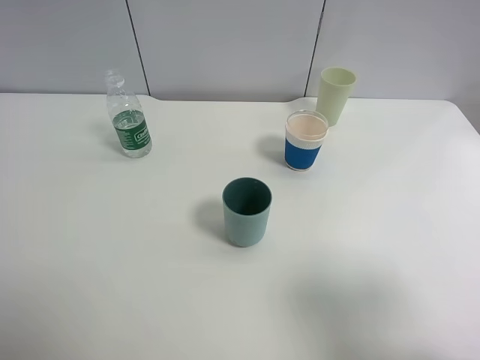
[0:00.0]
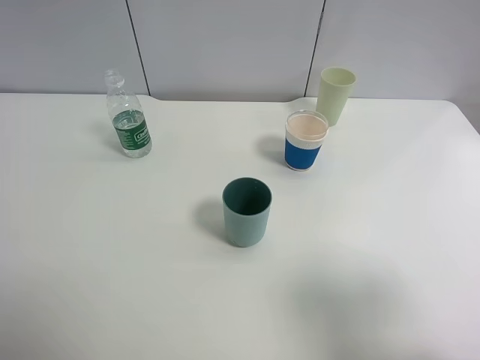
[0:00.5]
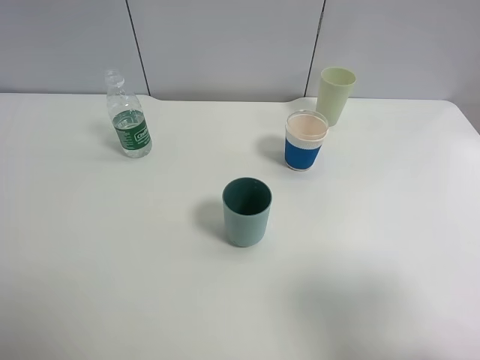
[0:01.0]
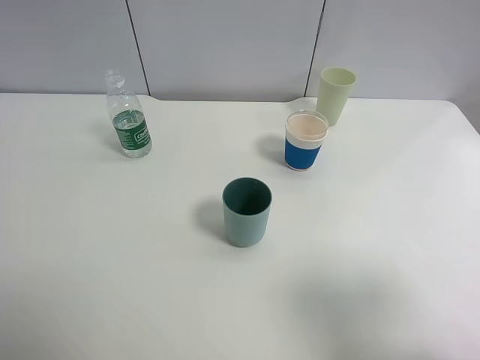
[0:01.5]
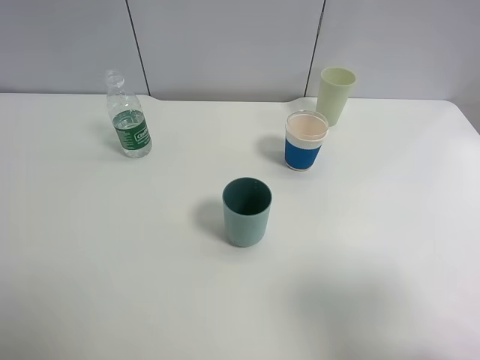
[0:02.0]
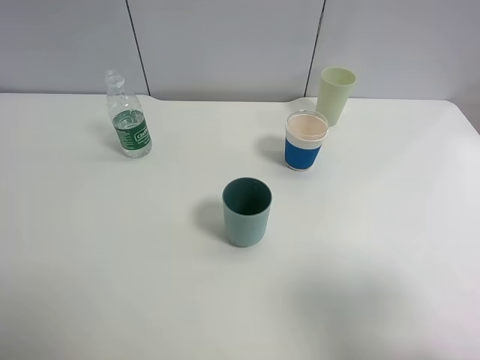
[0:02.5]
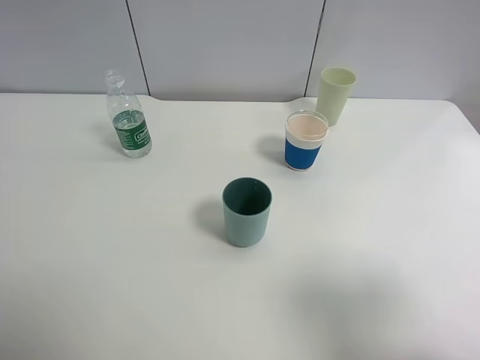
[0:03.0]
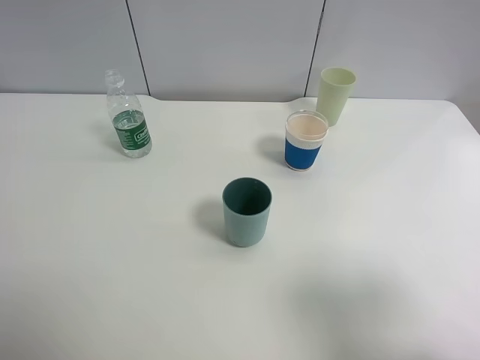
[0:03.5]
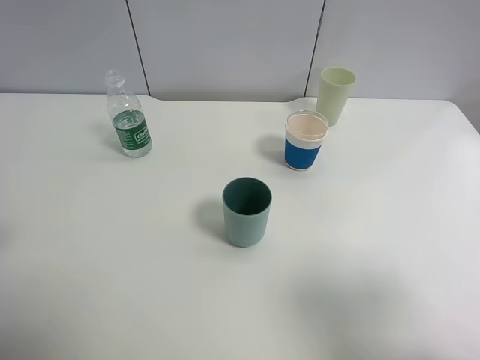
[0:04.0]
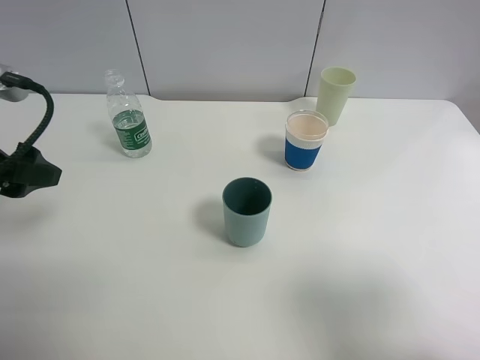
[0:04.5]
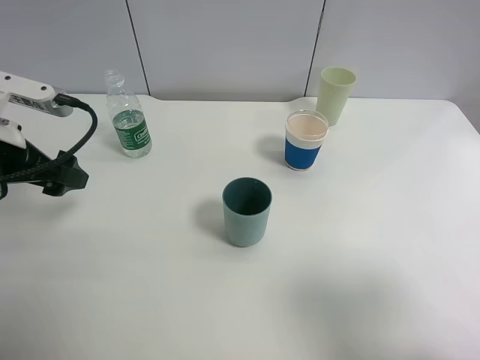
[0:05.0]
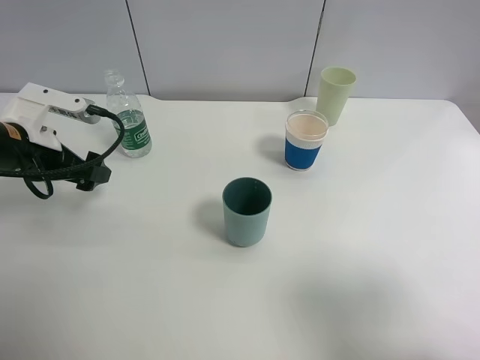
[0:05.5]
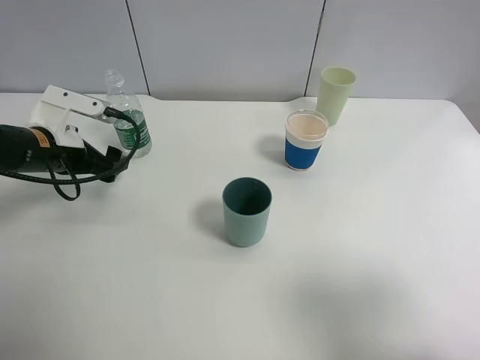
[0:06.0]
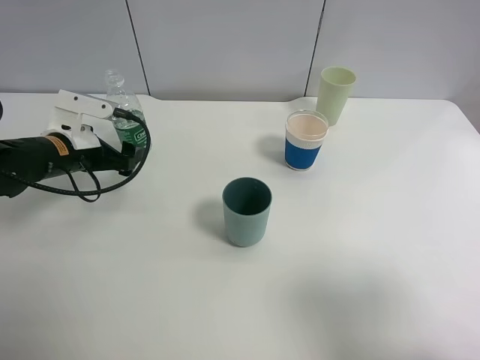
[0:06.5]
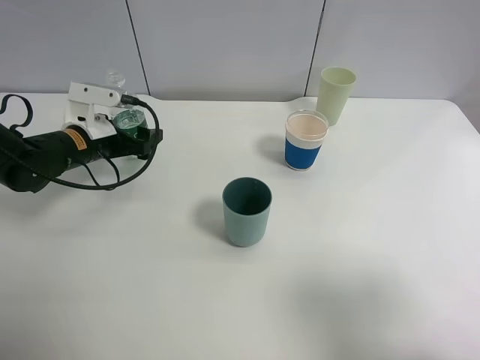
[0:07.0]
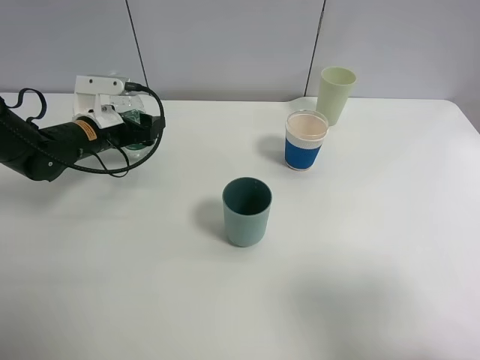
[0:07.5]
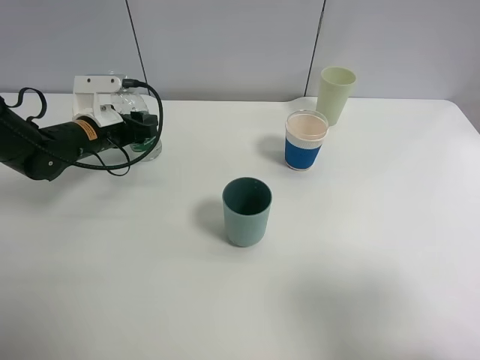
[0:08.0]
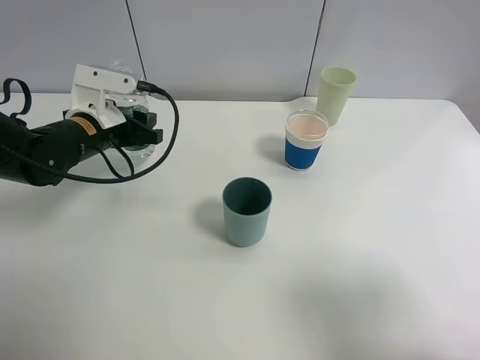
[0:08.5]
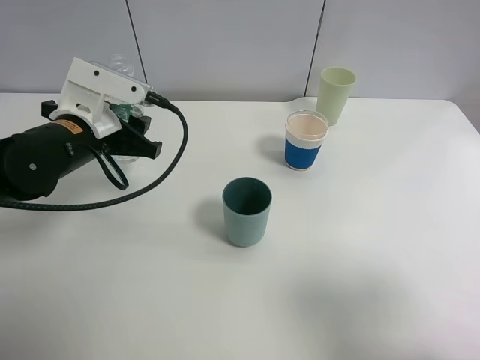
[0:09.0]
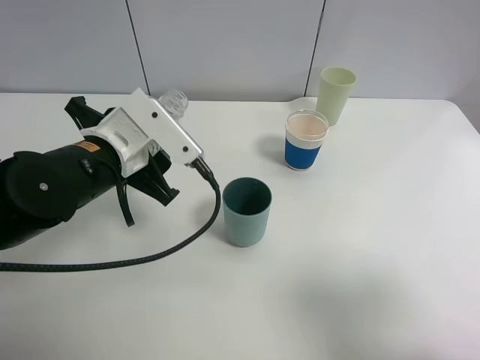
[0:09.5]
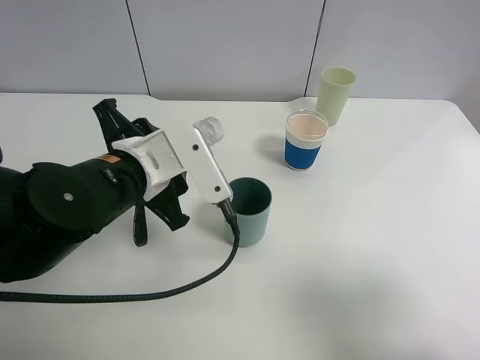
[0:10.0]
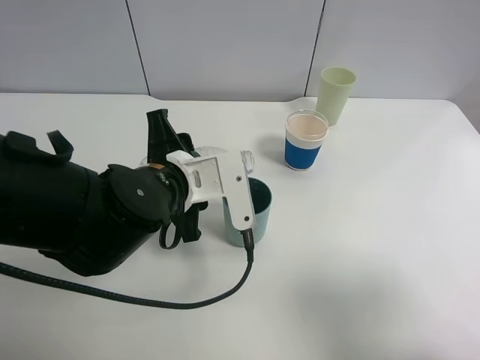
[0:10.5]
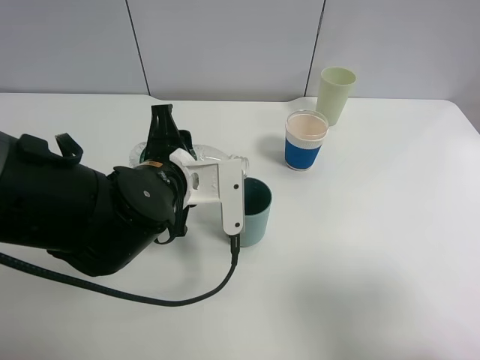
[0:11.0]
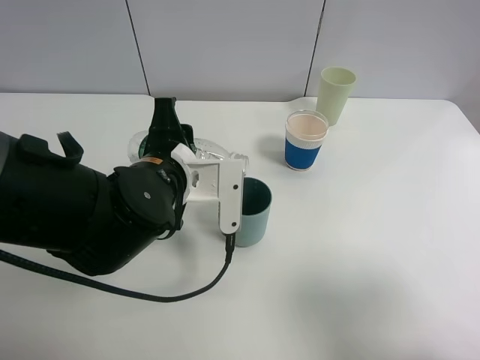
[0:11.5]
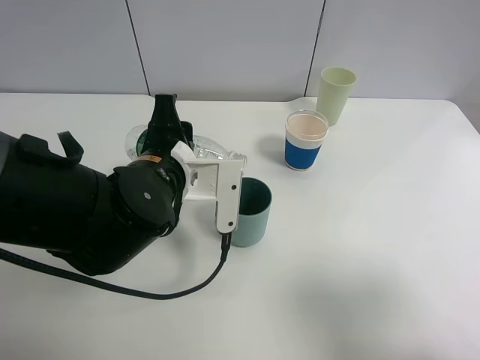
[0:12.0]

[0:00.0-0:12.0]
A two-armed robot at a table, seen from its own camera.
Task of the whole recording: use a clamp to hold the bottle of the drink, pour the beverage into a random cup, then clamp the cup containing the drink and pour the drink into another random cup.
Step, 0:00.0 to 0:08.5: Pick up the water bottle with left gripper.
0:00.0 to 0:02.0: Neither gripper changes place.
0:04.0 to 0:06.0: The left gripper shifts some 25 cm forward and downward.
0:06.0 to 0:08.0: The left gripper moves forward, roughly 5 cm, and closes up.
0:08.0 to 0:10.0: The left gripper moves backward, to the right and upward, approximately 20 cm.

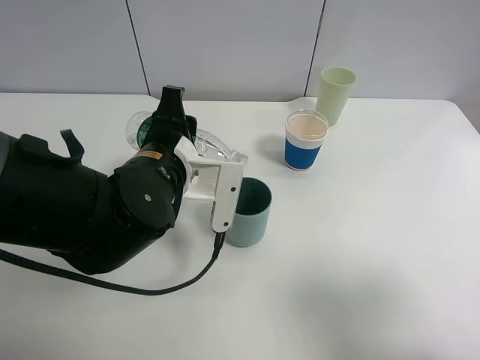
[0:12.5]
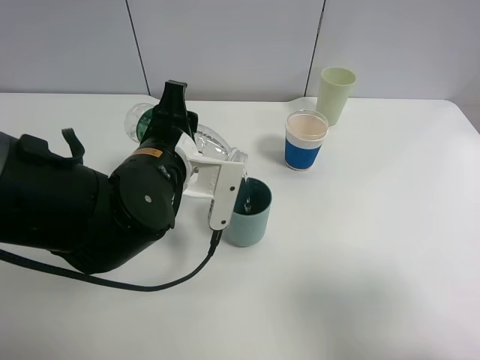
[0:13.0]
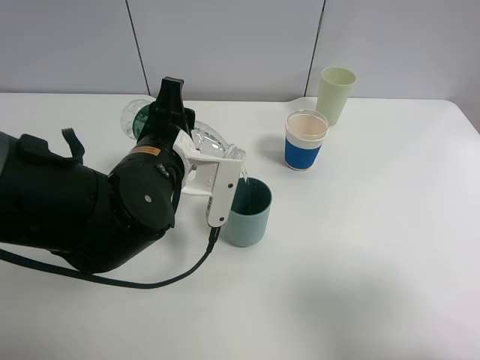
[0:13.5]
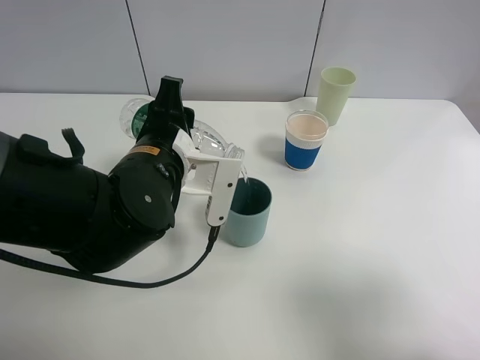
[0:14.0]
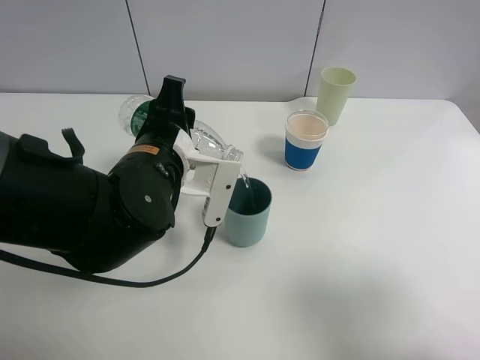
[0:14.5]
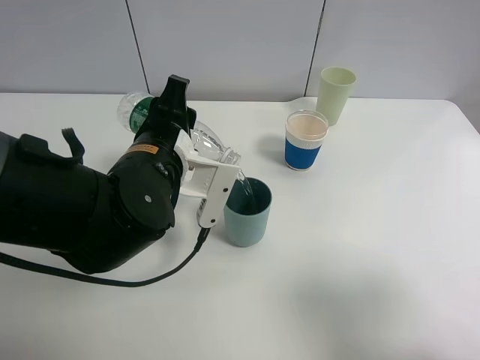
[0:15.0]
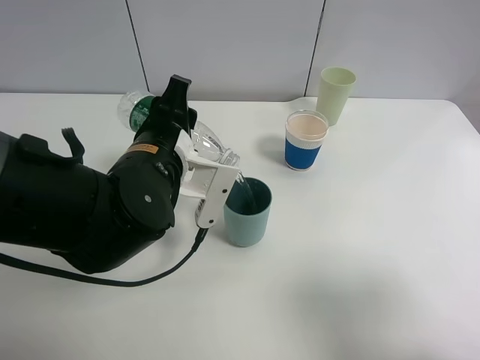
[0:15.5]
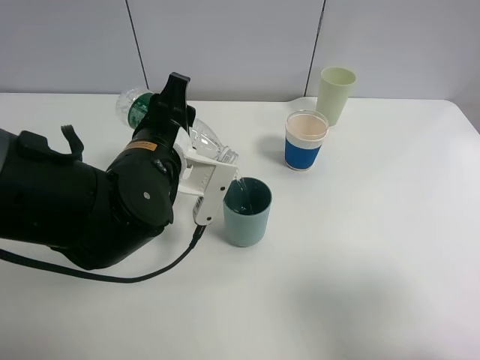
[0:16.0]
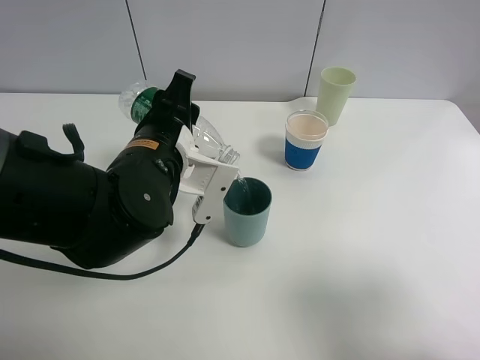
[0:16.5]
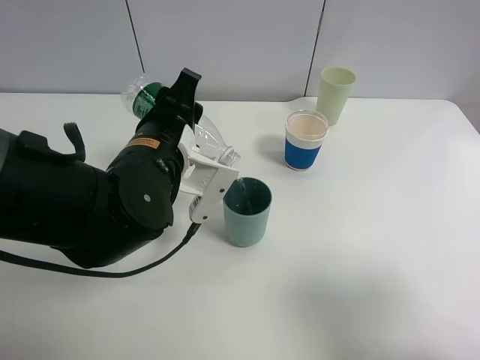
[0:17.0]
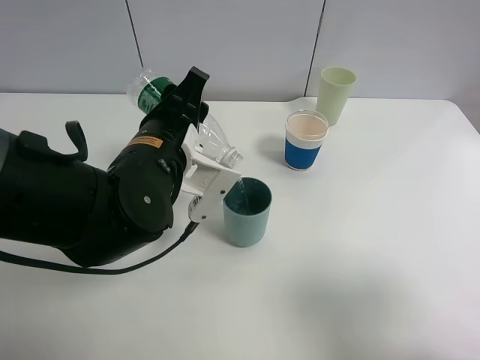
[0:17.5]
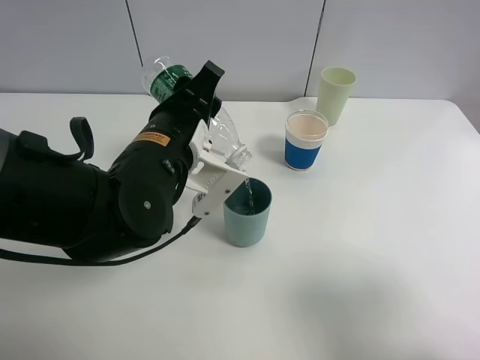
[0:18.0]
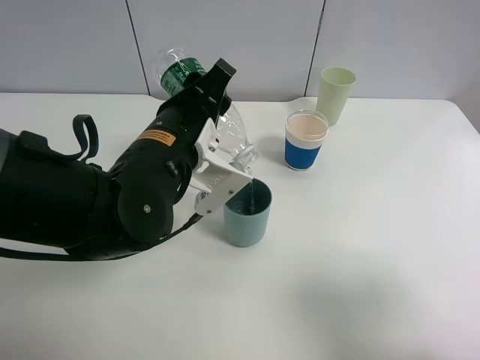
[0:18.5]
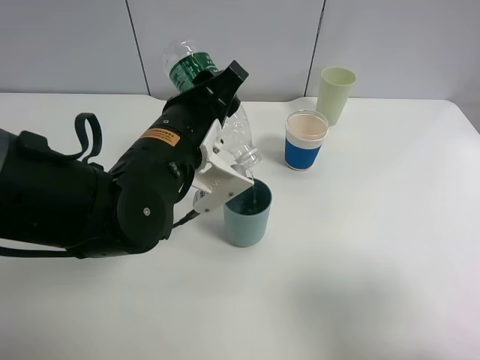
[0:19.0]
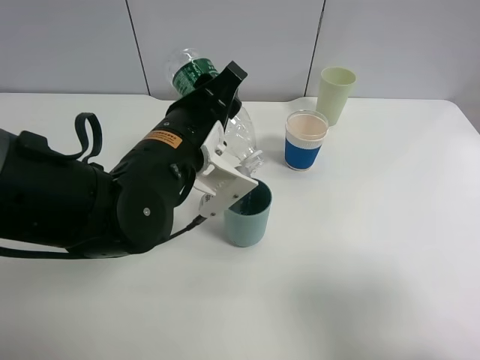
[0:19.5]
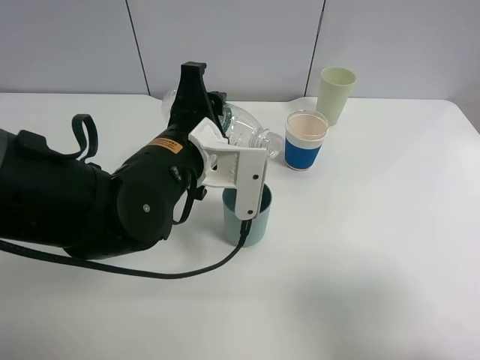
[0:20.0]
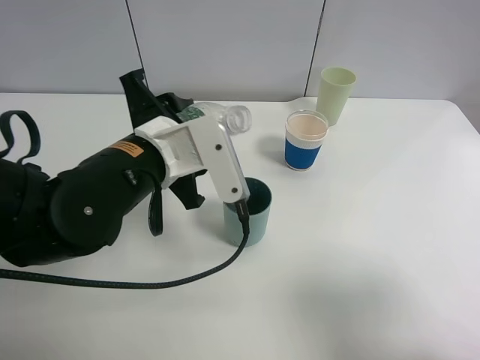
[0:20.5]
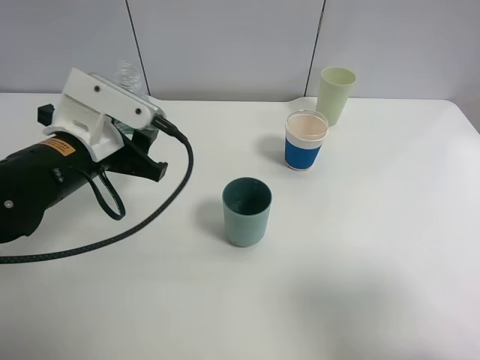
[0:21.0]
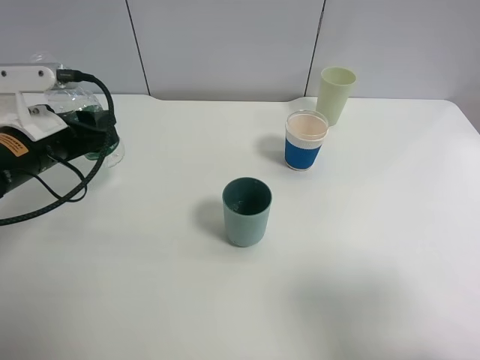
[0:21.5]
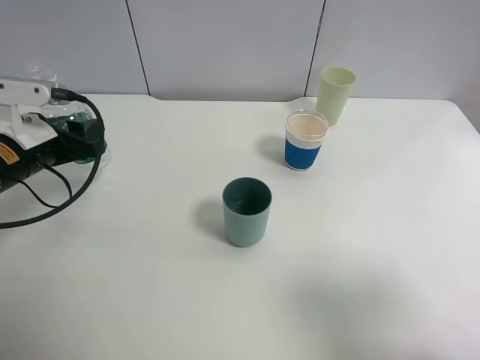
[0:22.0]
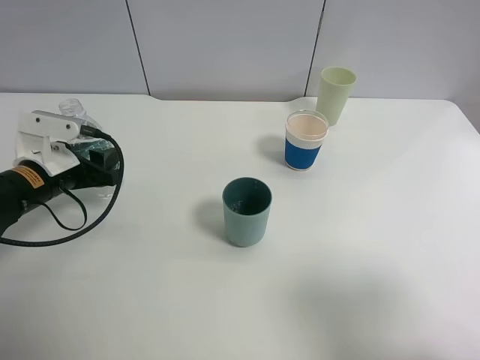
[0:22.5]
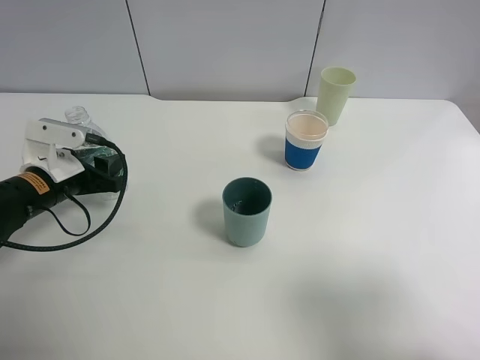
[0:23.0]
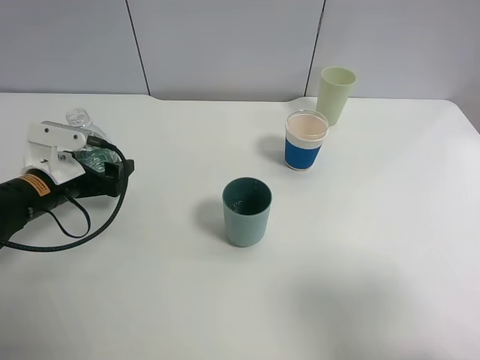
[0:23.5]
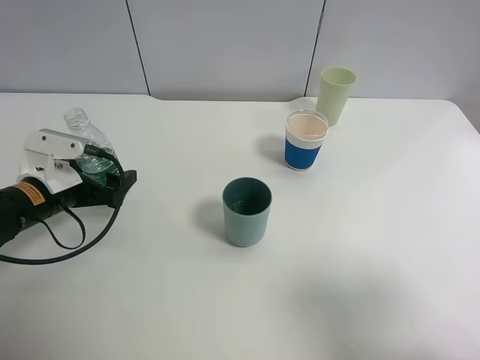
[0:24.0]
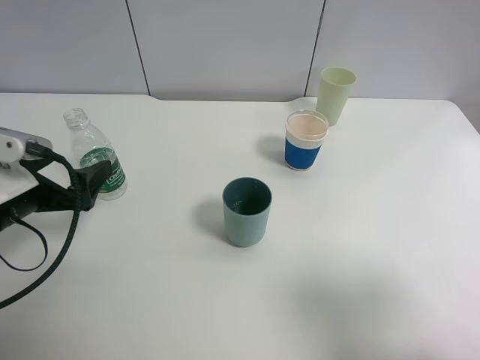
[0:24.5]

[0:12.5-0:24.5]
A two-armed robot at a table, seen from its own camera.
Task of the whole recording: use a clamp to hold the bottle of the drink, pour the beverage into a random cup, then clamp the cup containing the drink and pour the drink into another random cup.
Step, 0:12.5 to 0:19.5: Pour the water into the blue plastic cup with left gripper.
Step, 0:20.0 to 0:23.5: Place the water bottle on the table with left gripper.
0:12.5 to 0:16.5: The grippers stay close to where they were, moving slightly.
0:16.5 to 0:18.5: There are only small adjustments of the grippers.
0:20.5 to 0:22.5: The left gripper heads to the left and downward, covering roughly 20 cm.
0:22.5 to 0:24.5: The left gripper goes roughly 10 cm backward, and opens up.

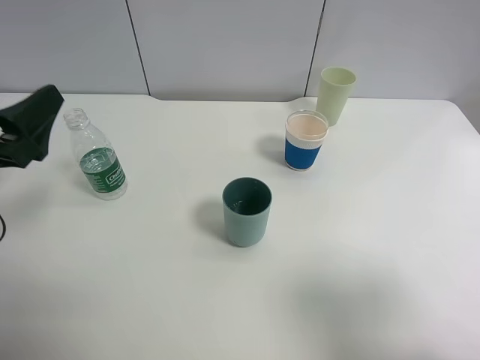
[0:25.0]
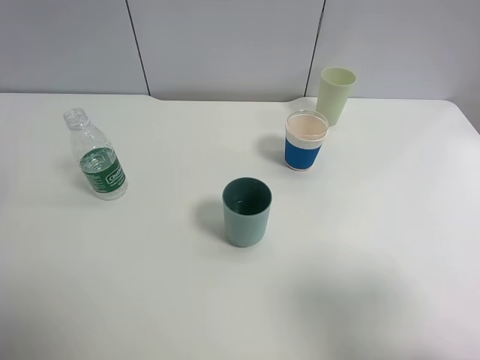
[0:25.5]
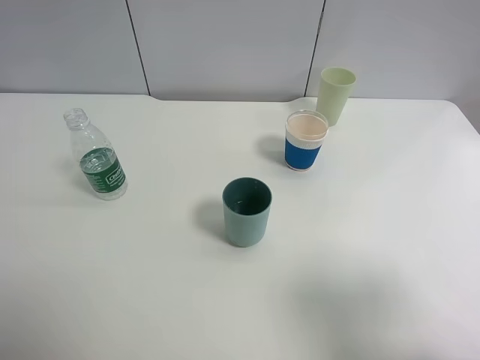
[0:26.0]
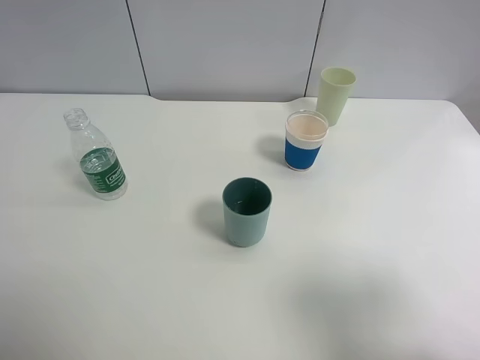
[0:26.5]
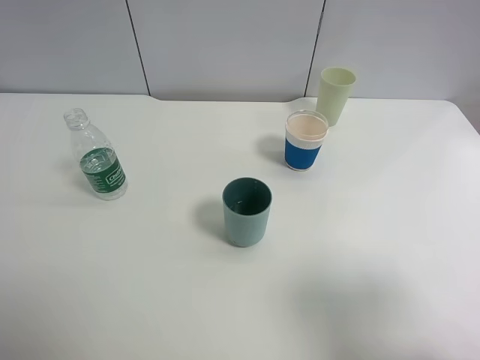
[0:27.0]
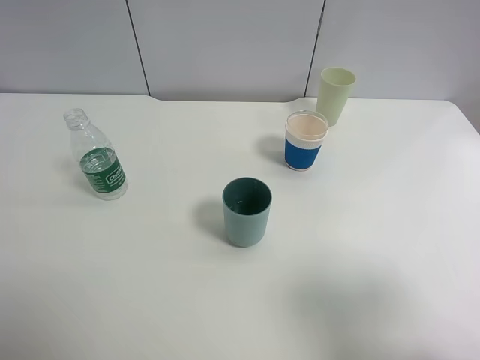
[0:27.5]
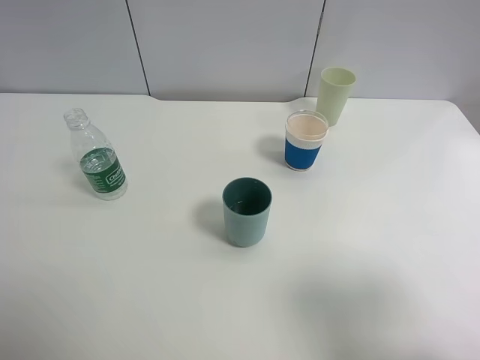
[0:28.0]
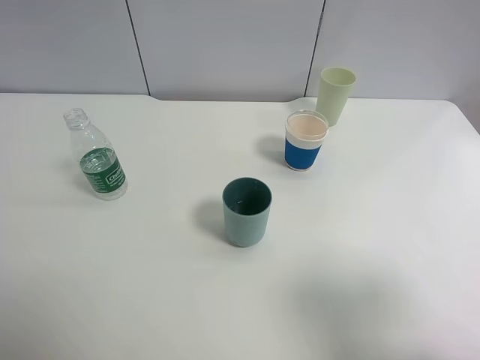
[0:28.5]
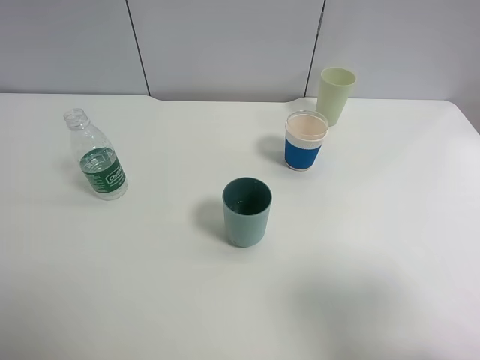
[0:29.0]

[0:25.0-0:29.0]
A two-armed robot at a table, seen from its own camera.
Task of the whole recording: use a clamp to hold the bottle of the drink, pour the beverage into a random cup, then clamp the cup containing the drink and pour the drink into another random cup.
0:25.0 to 0:27.0: The left gripper is displaced backward and upward by some 20 cm.
